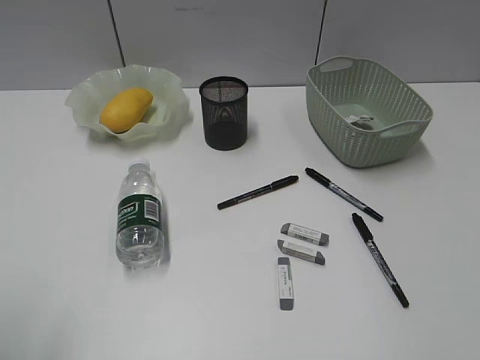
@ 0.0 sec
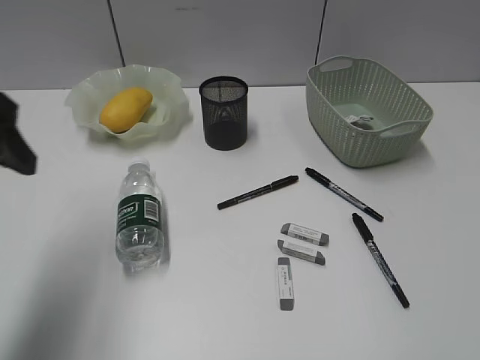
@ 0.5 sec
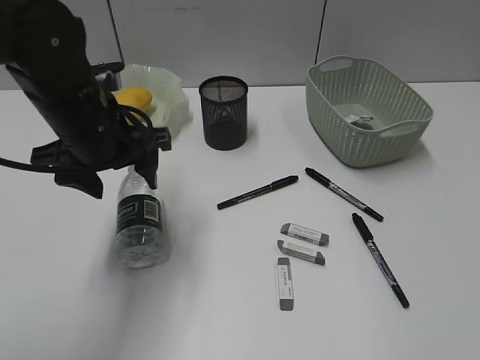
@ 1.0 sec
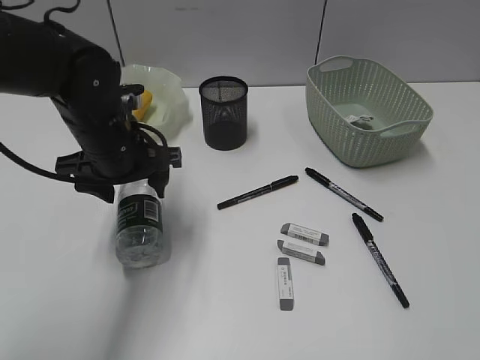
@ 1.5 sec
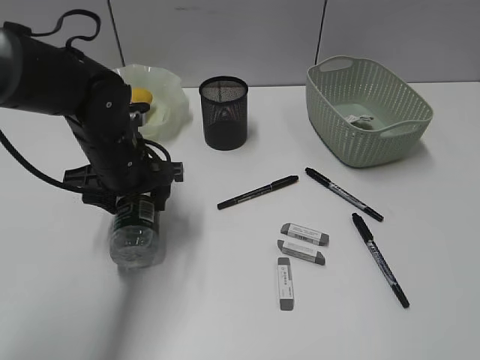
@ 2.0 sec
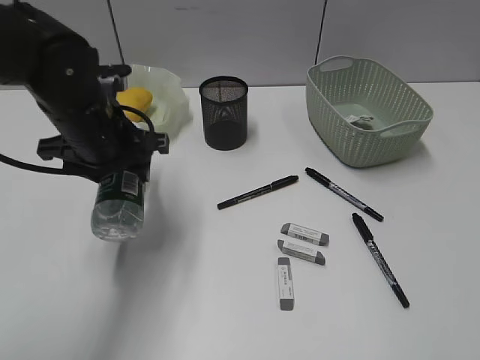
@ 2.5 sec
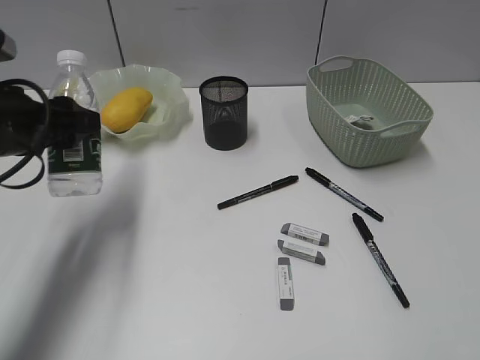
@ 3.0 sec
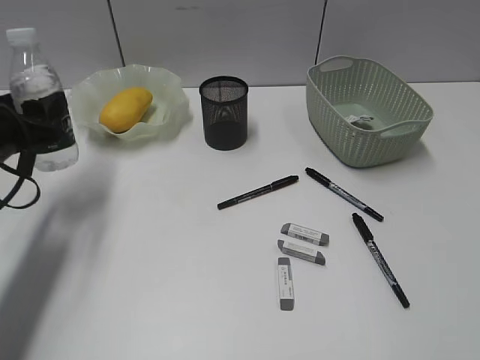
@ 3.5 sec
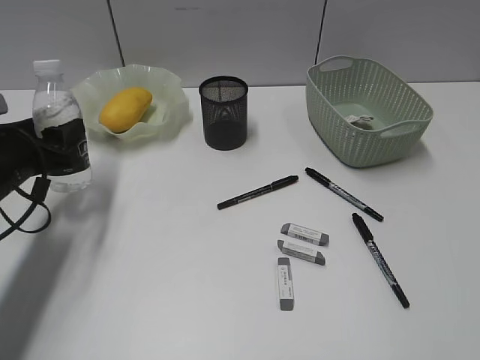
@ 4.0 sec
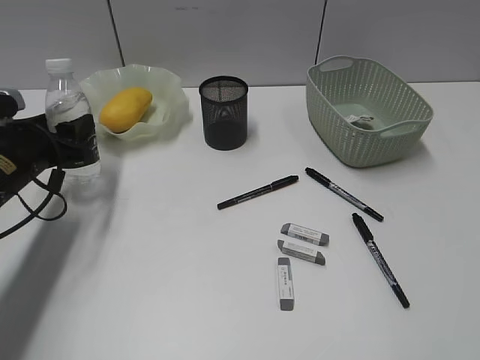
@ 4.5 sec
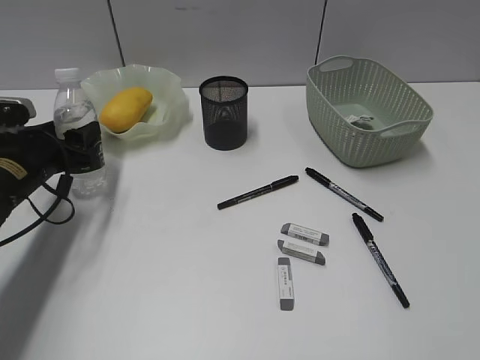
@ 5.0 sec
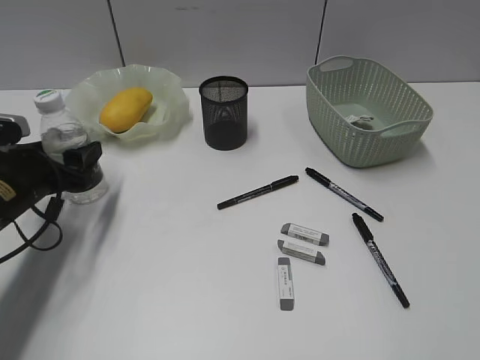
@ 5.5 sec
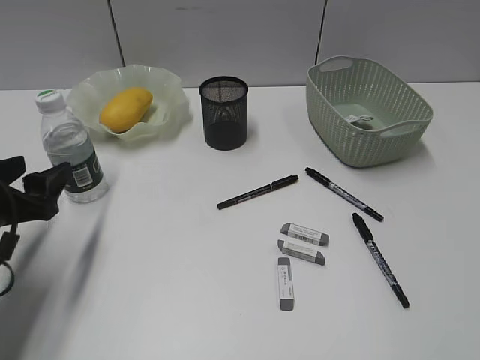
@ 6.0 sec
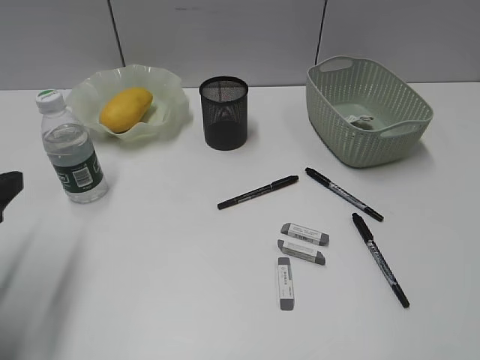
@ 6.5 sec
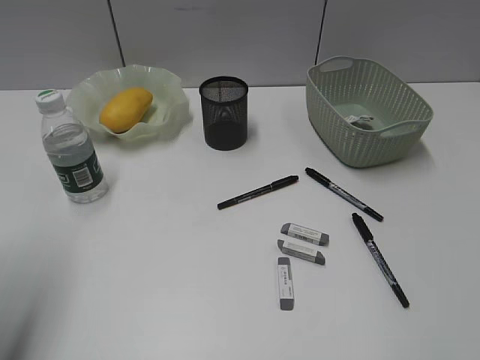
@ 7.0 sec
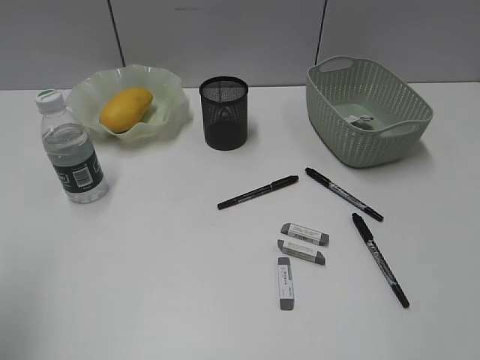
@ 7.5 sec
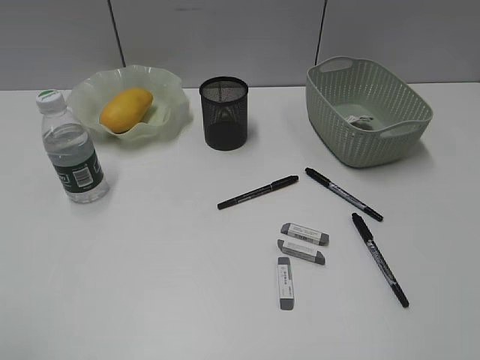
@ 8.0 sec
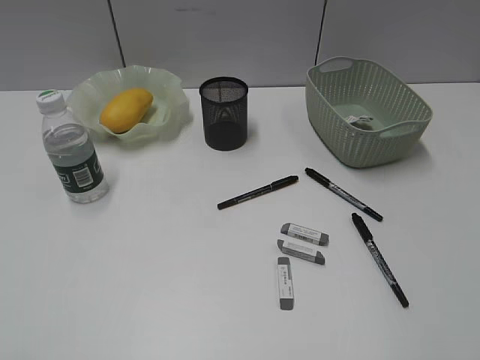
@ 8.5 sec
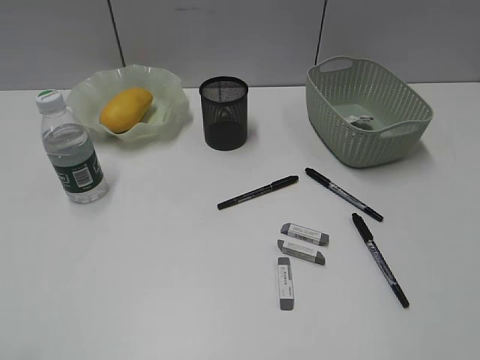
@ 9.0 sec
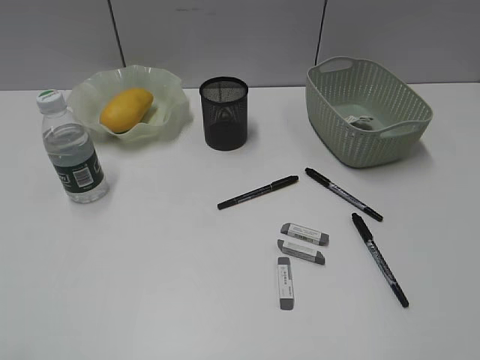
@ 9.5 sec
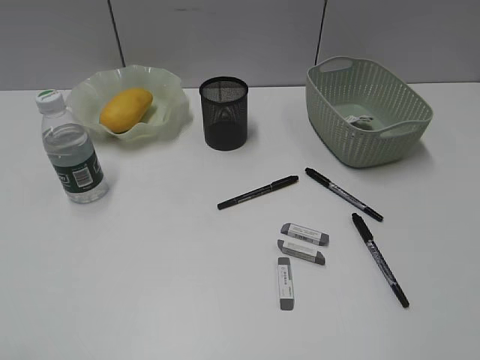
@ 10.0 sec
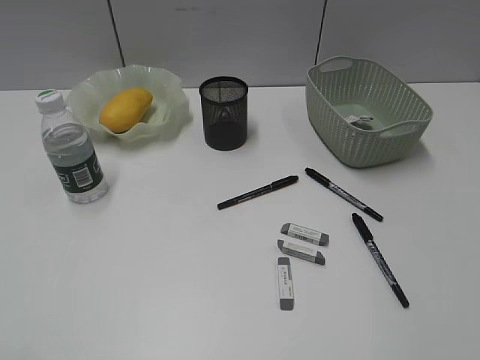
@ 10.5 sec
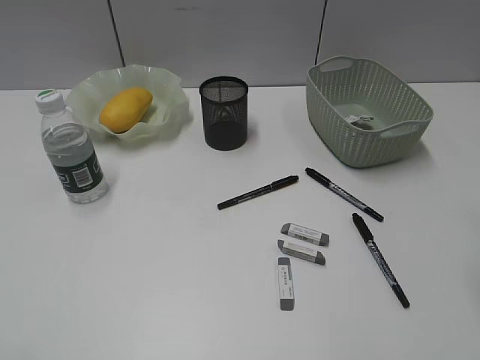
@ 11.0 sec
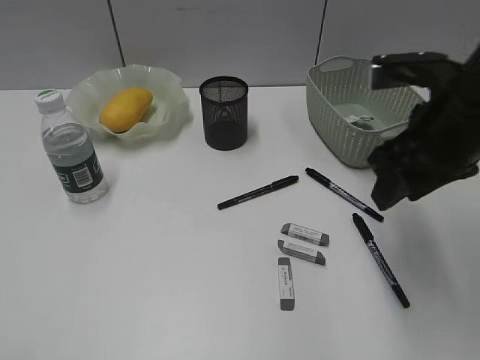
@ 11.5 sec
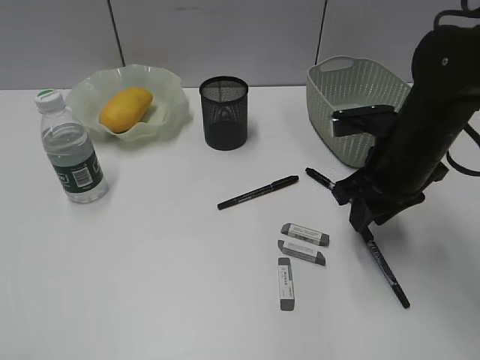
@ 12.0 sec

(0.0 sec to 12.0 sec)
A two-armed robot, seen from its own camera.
Step, 0.0 sec - 2.0 sec: Grasp the bottle with left gripper.
Step, 2.5 sec - 5.5 sec: Stand the bottle with left gripper.
0.0 sec - 2.0 sec: The left gripper moves forward, to the right and downward, approximately 35 cm.
2.0 sec - 4.0 sec: The left gripper heads to the left, covering about 15 cm.
4.0 sec - 6.0 sec: The left gripper moves backward, about 5 cm.
6.0 sec - 8.0 sec: The left gripper goes some 30 cm backward and upward.
10.0 sec - 12.0 sec: The right gripper goes approximately 35 cm forward and downward.

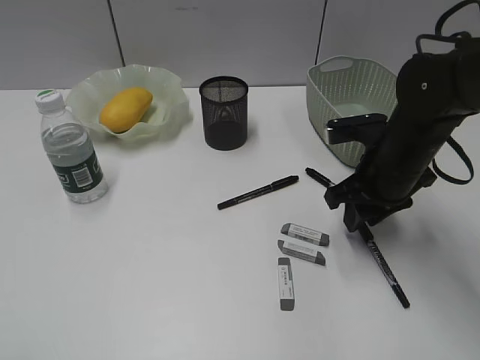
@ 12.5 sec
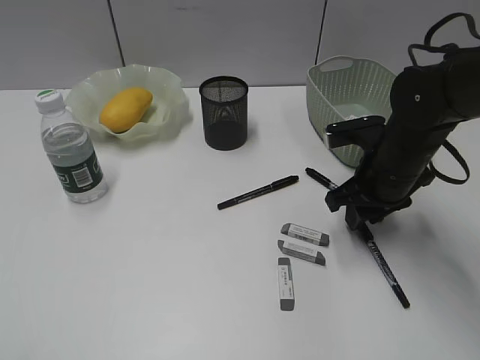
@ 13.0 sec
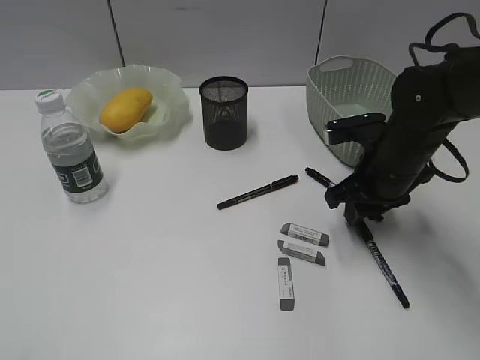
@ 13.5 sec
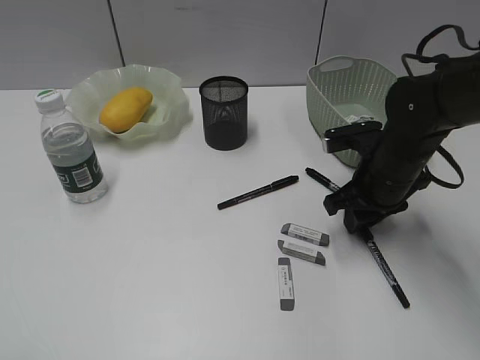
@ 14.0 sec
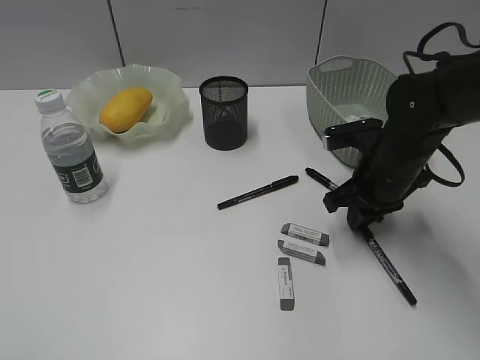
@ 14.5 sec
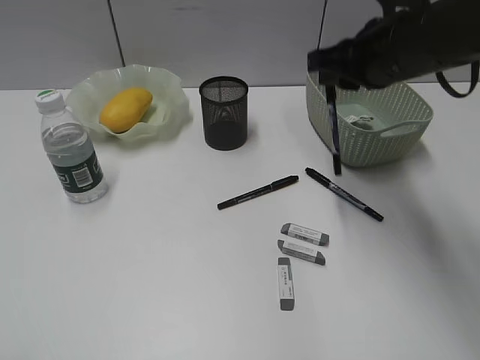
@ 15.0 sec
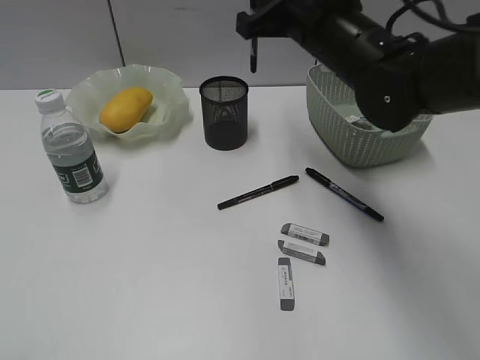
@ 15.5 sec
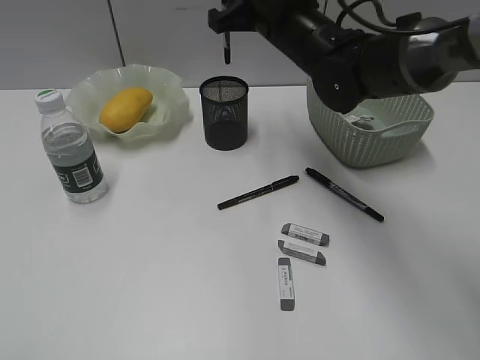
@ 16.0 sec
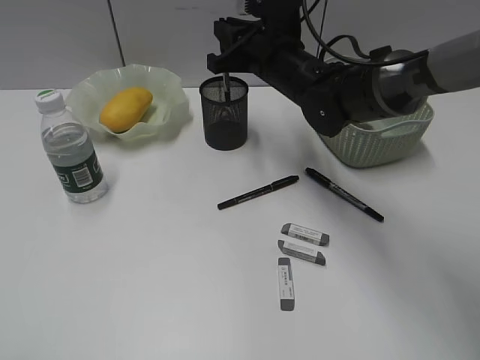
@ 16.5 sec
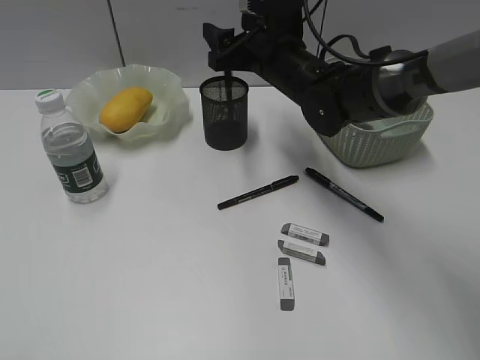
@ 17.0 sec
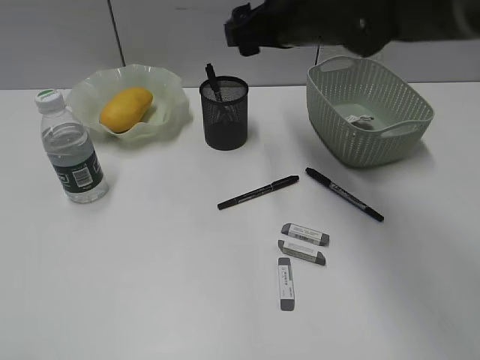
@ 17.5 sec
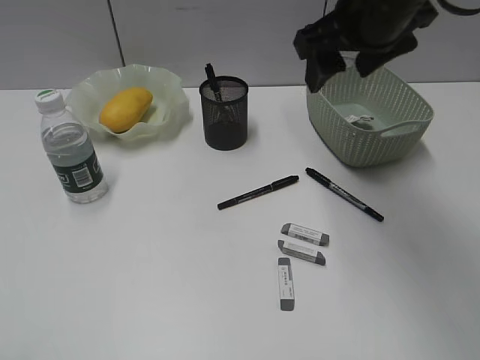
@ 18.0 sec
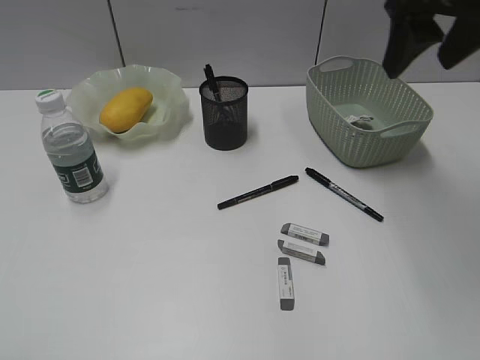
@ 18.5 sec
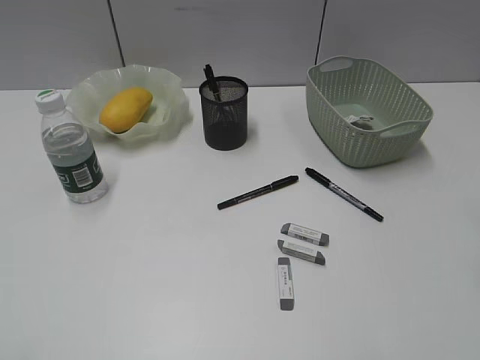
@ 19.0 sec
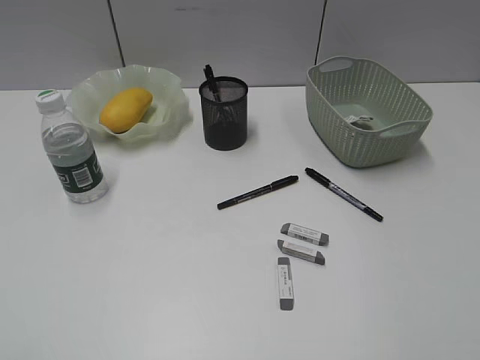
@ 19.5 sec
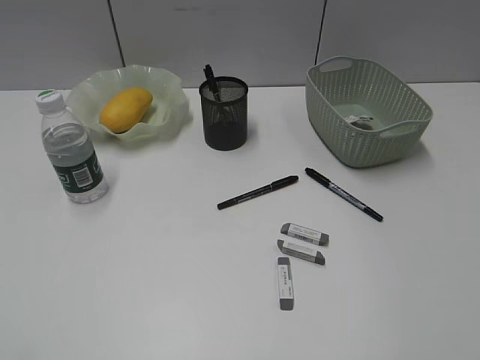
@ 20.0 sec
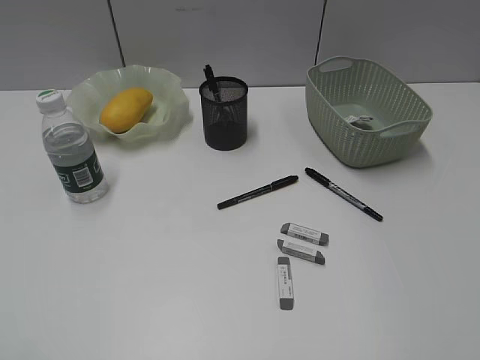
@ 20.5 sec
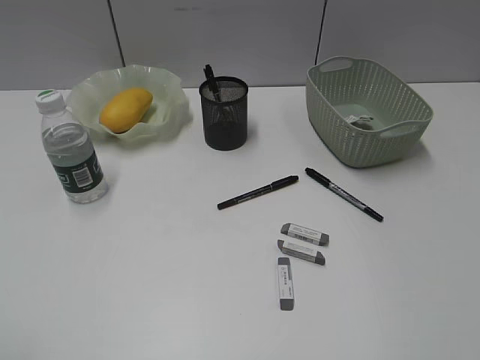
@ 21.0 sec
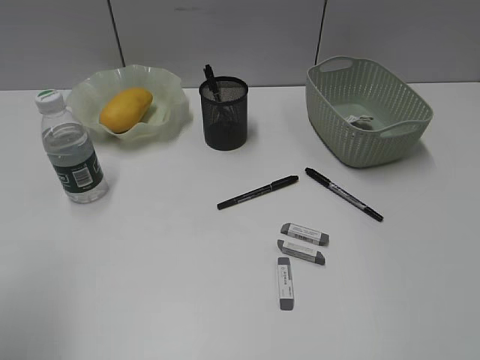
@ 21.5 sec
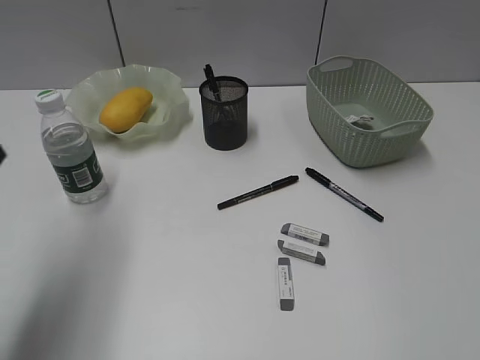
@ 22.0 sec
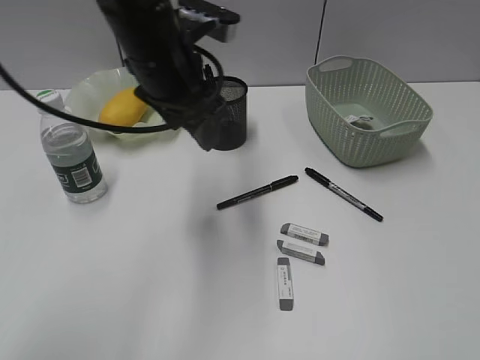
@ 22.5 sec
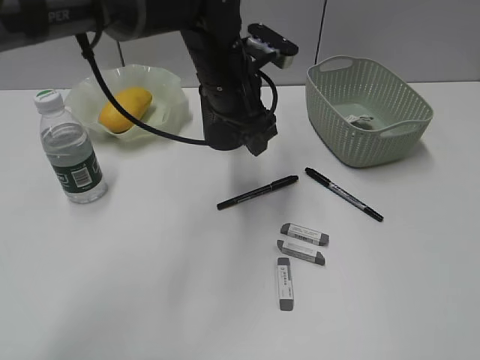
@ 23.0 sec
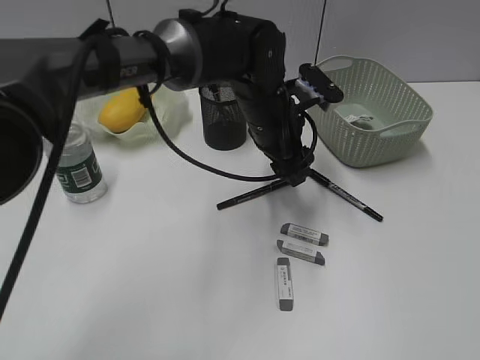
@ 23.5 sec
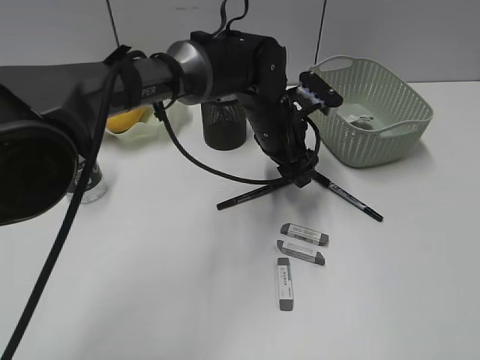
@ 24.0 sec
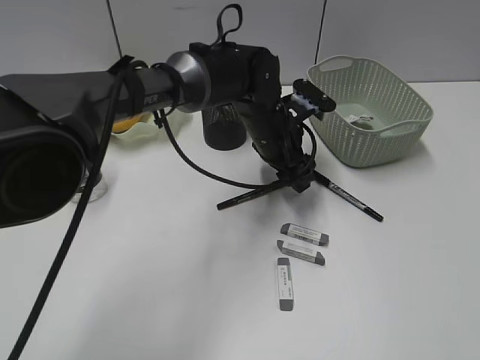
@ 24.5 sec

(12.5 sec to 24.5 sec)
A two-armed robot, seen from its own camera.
Step, 12.5 sec - 14.5 sec: Grasp the black pen with right gripper.
Step, 15.0 sec - 17.0 sec: Place the black pen in pen holder with right gripper.
12.5 sec - 14.5 sec: There are only small adjustments of the grippers.
14.5 sec - 16.5 sec: The right gripper moves to the left, forward and upward, approximately 15 cm.
16.5 sec - 18.5 sec: The right gripper goes approximately 25 cm upward, to the right and backward, and opens up.
18.5 sec - 20.5 sec: The right gripper goes some 35 cm backward.
20.5 sec - 22.5 sec: The left gripper goes some 40 cm forward and to the right.
22.5 sec - 24.5 sec: The left gripper heads downward and to the right, covering approximately 20 cm.

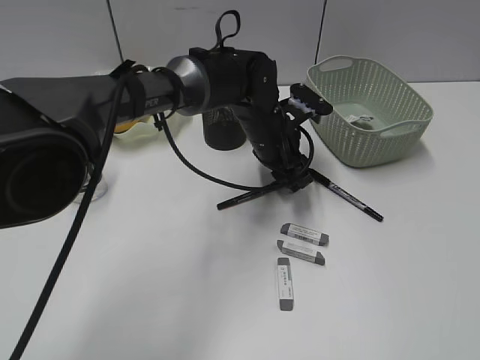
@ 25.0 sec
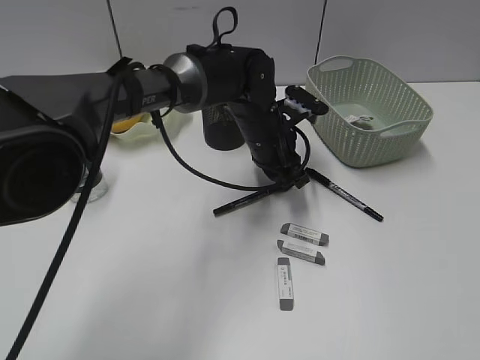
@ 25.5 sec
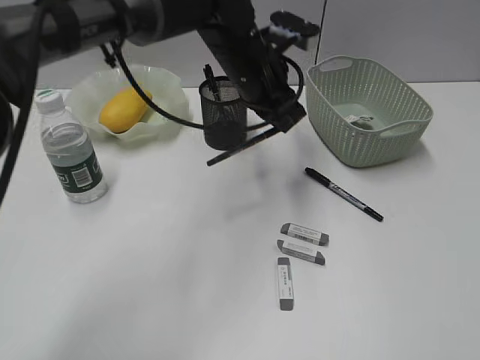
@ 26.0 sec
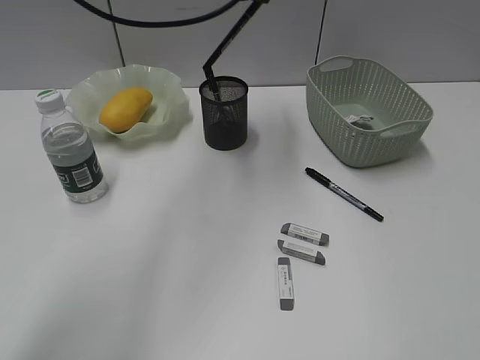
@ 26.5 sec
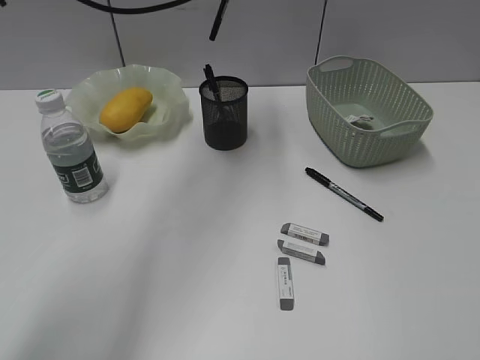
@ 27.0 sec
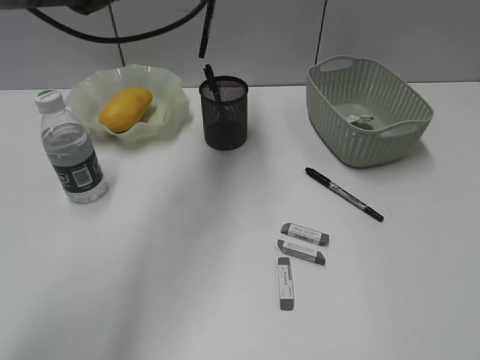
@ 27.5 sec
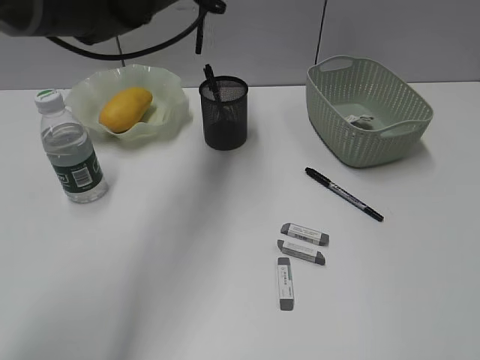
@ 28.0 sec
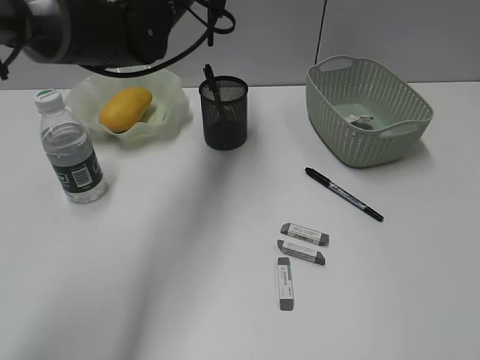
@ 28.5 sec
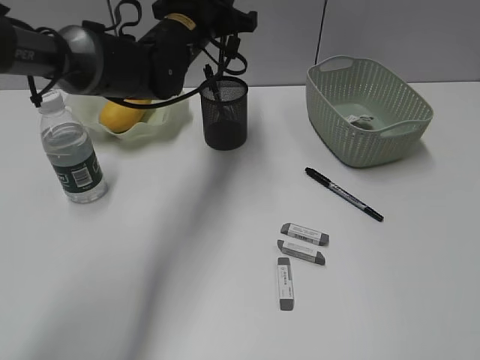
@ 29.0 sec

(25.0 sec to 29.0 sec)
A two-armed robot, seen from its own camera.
25.0 sec - 27.0 sec: The left gripper moves upward and to the left, approximately 25 cm, and closes its fingers.
27.0 sec - 29.0 sec: The left gripper is displaced downward by approximately 10 cm.
